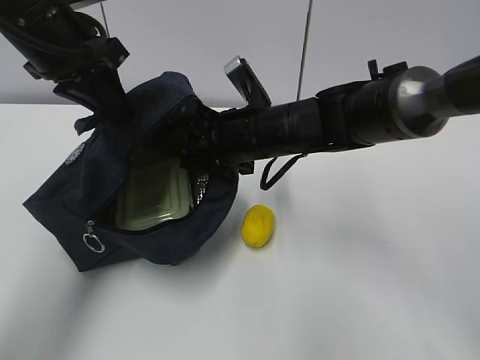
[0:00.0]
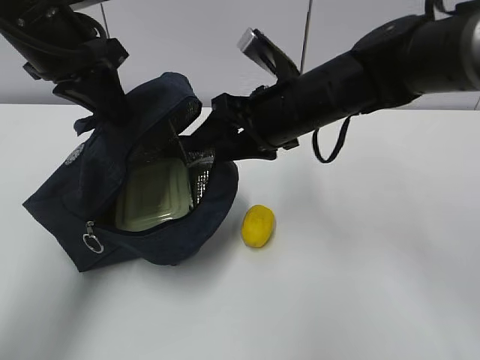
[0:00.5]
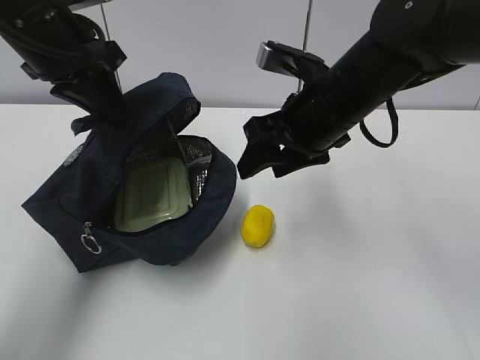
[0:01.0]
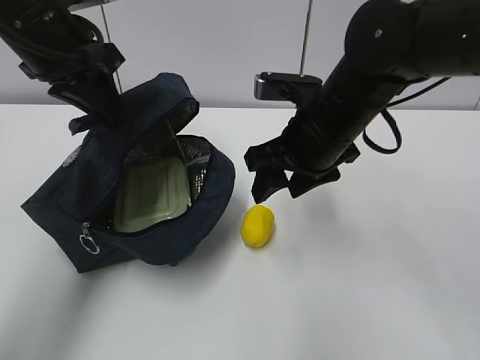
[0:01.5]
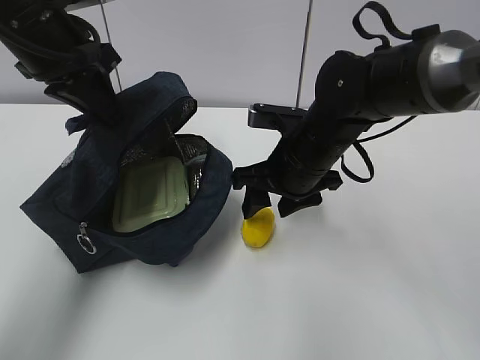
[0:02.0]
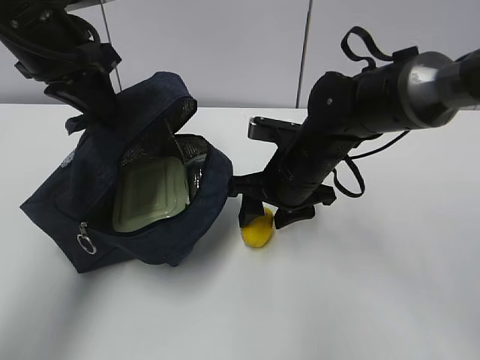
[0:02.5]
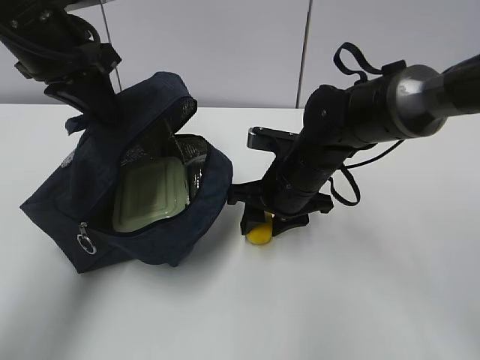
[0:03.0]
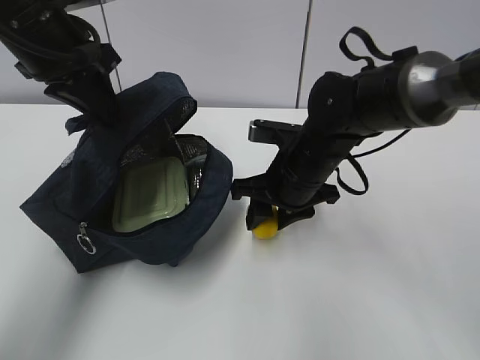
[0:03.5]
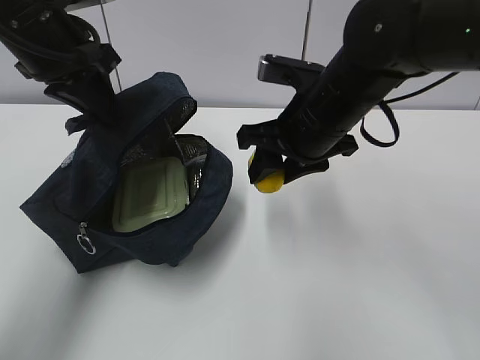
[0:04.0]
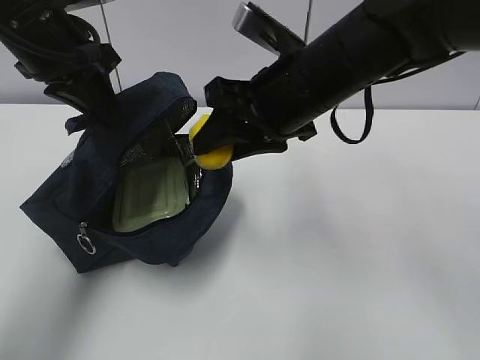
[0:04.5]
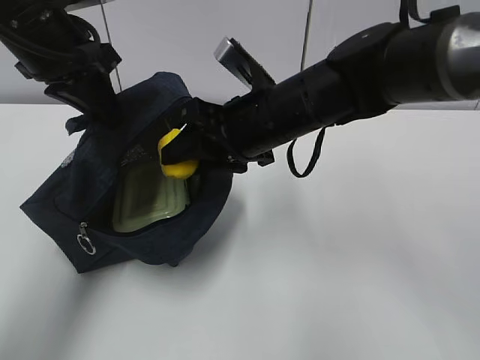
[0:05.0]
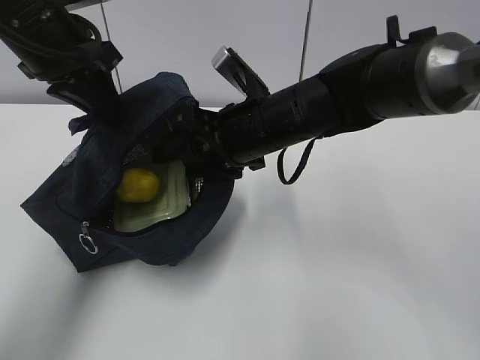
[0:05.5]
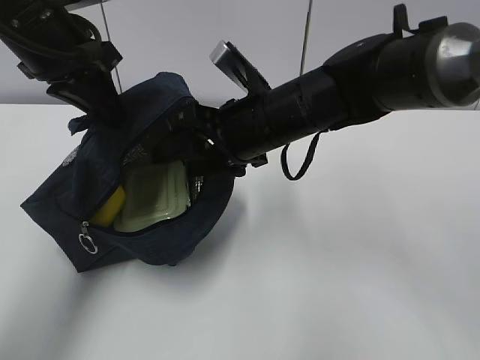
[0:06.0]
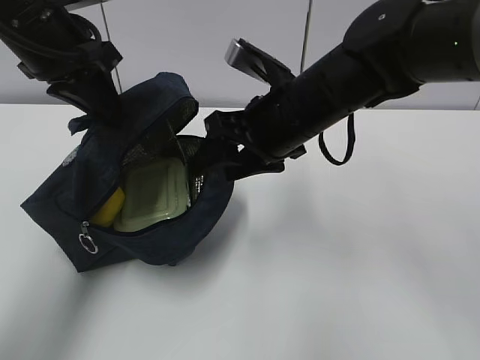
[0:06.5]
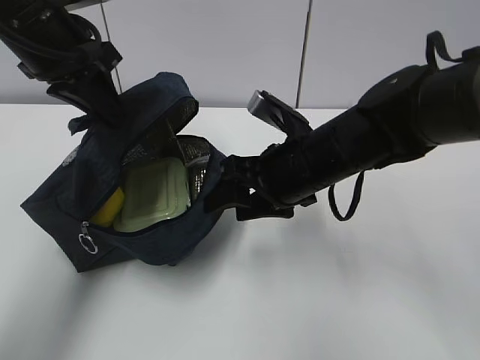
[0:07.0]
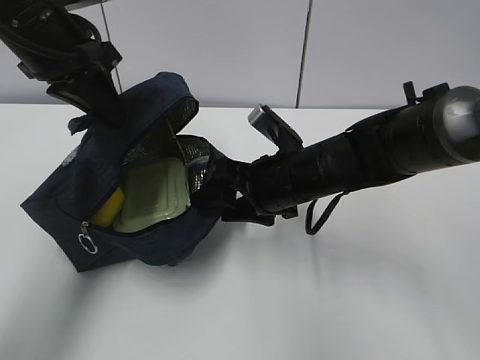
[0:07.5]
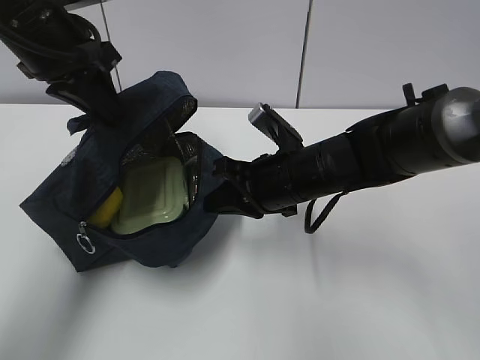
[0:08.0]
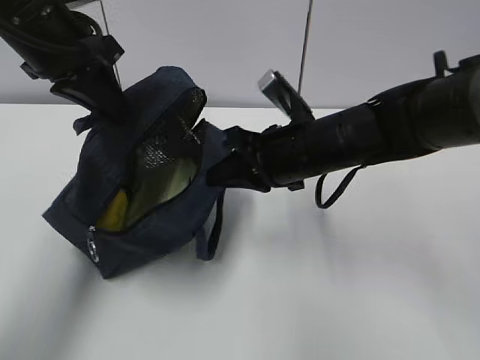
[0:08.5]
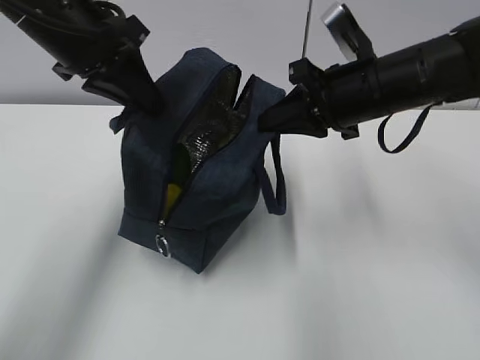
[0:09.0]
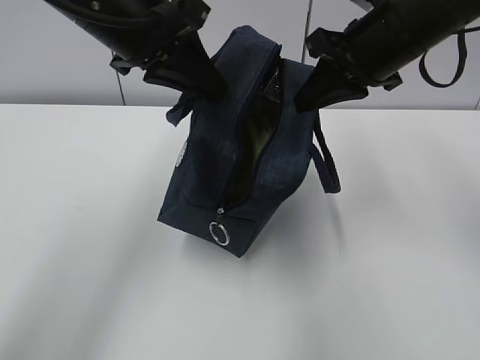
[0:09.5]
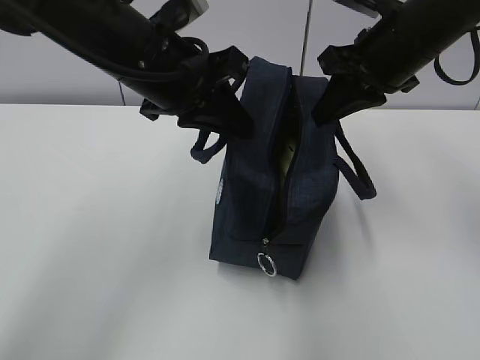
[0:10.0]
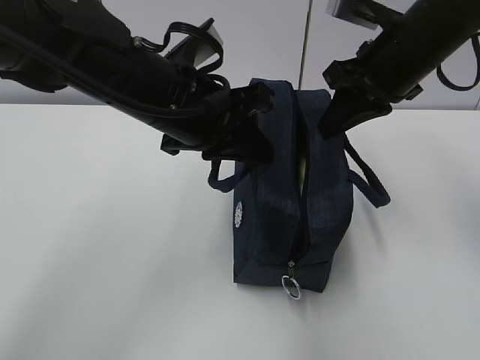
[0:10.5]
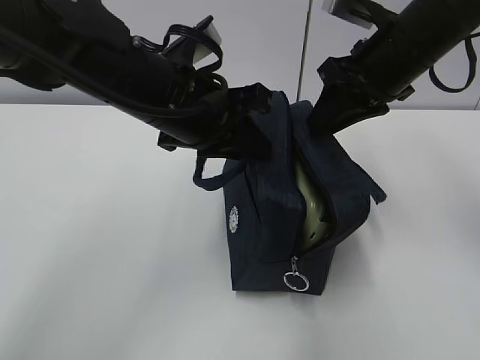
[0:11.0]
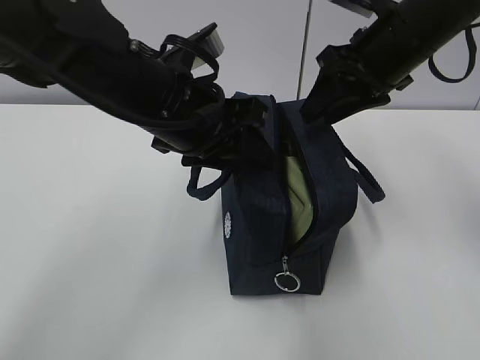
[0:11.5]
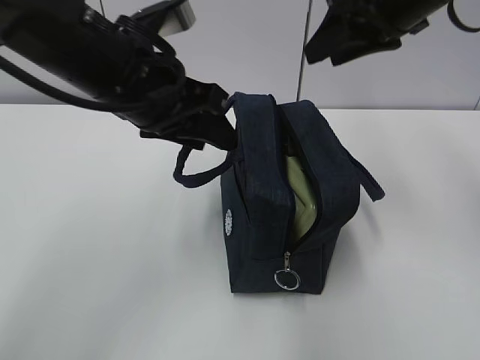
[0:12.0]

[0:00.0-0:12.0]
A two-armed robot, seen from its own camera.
Step, 0:00.5 to 0:01.5: Grab the lunch bag with your right hand.
Step, 0:02.0 to 0:04.5: Move the lunch bag to the right.
0:02.0 to 0:04.0: The right gripper heads upward, covering roughly 5 cm.
0:04.0 to 0:06.0: The right gripper is displaced to the left by about 5 cm.
0:06.0 to 0:08.0: The right gripper travels downward by some 5 cm, and closes.
0:08.0 to 0:10.0: The right gripper travels upward and to the right by approximately 20 cm. Meanwhile the left gripper travels to the right by about 10 cm.
0:10.0 to 0:12.0: The left gripper opens up, while the right gripper goes roughly 5 cm upward, and opens.

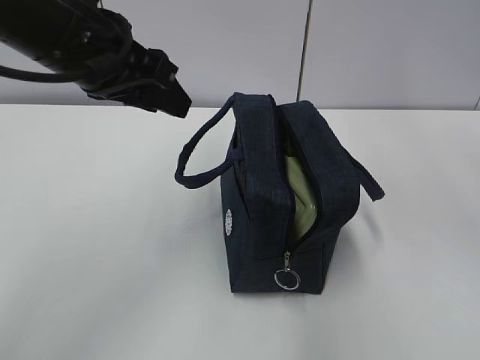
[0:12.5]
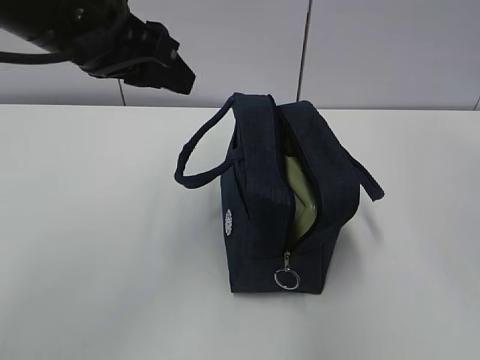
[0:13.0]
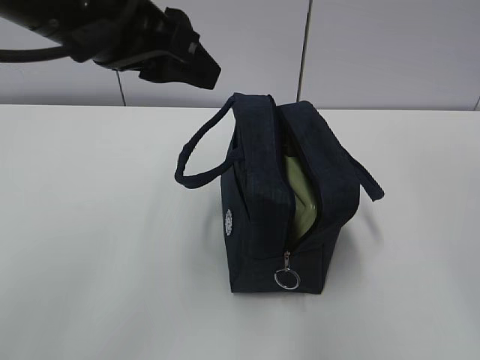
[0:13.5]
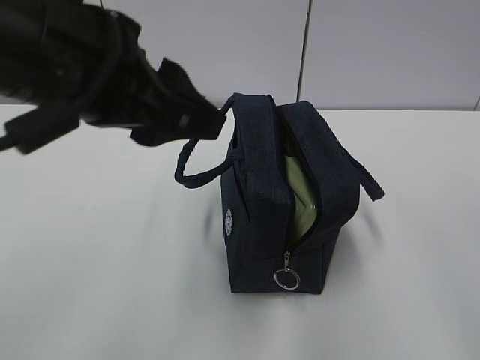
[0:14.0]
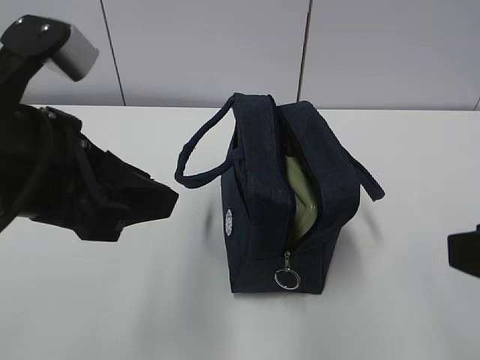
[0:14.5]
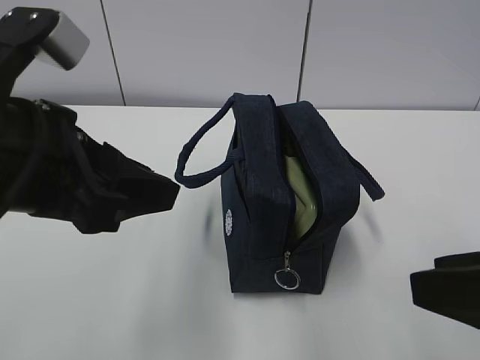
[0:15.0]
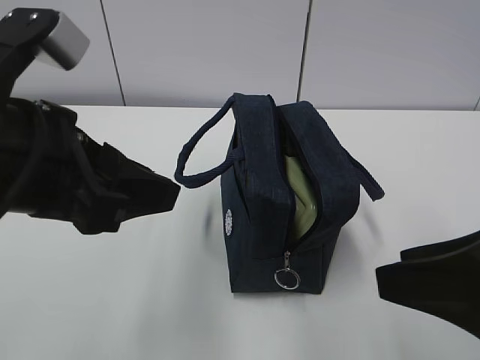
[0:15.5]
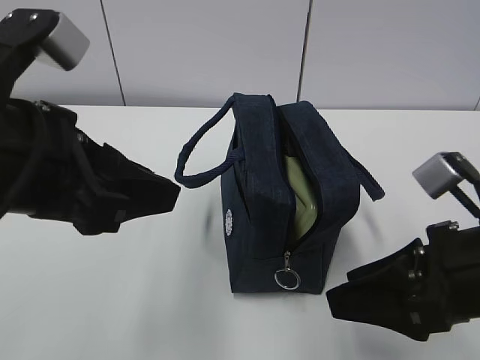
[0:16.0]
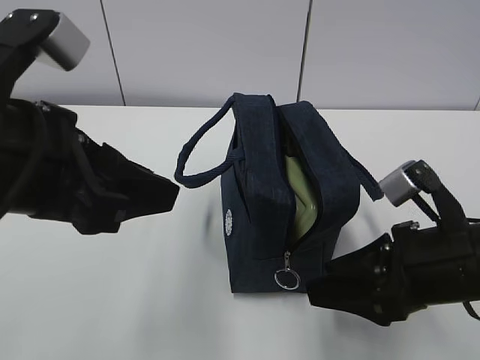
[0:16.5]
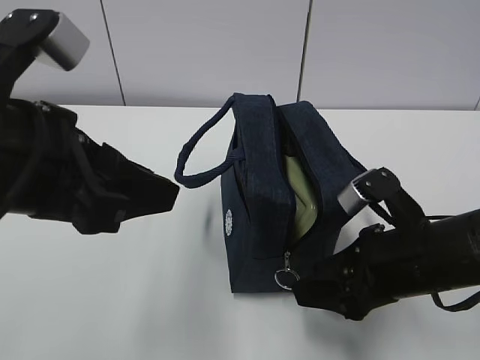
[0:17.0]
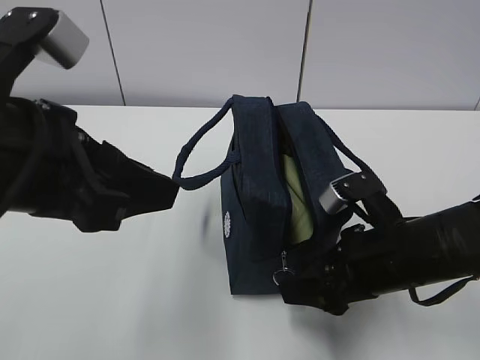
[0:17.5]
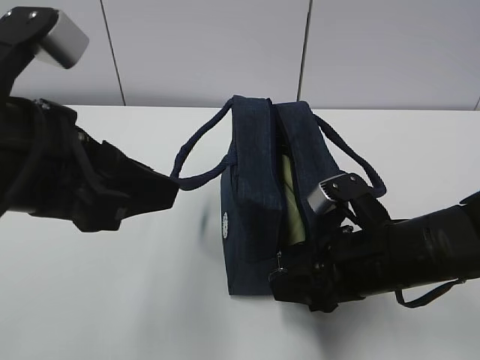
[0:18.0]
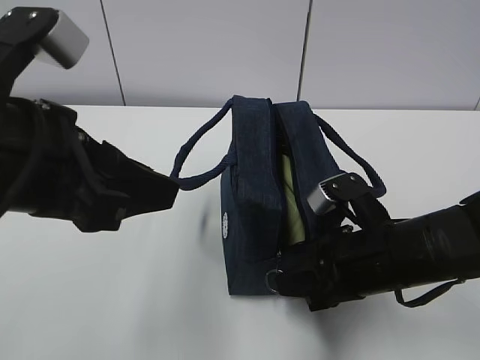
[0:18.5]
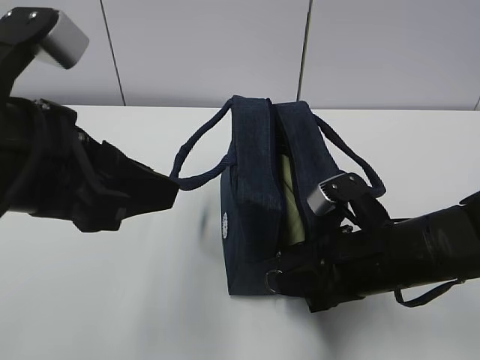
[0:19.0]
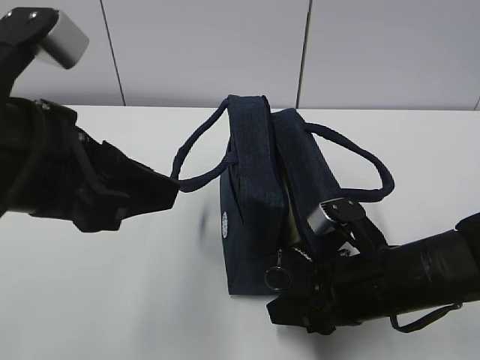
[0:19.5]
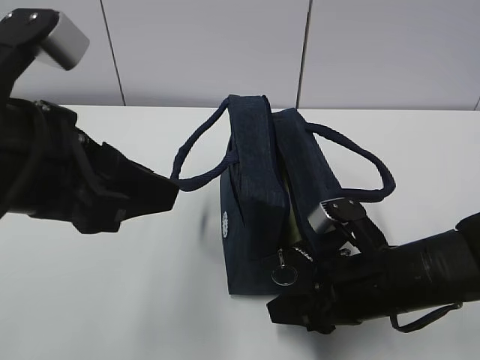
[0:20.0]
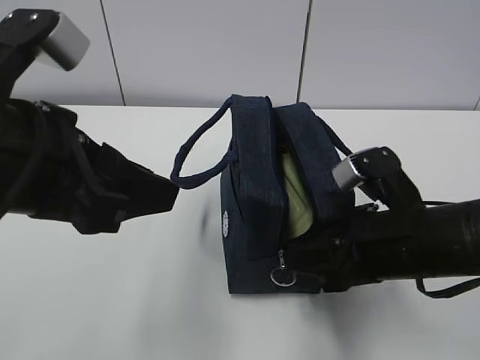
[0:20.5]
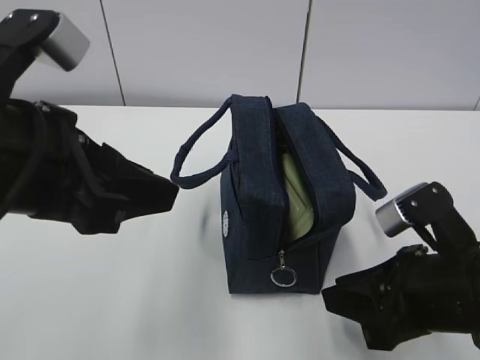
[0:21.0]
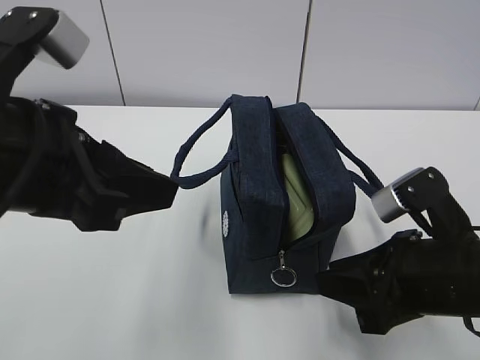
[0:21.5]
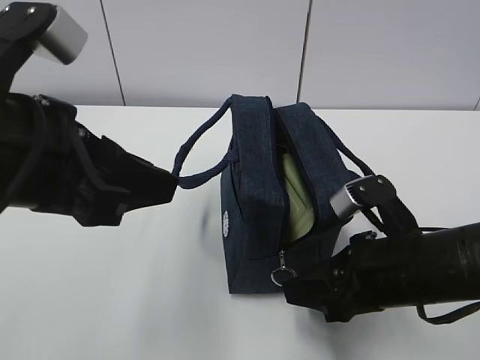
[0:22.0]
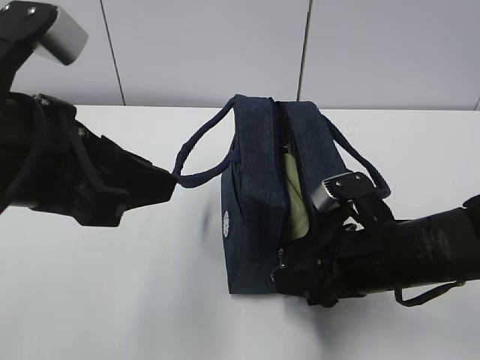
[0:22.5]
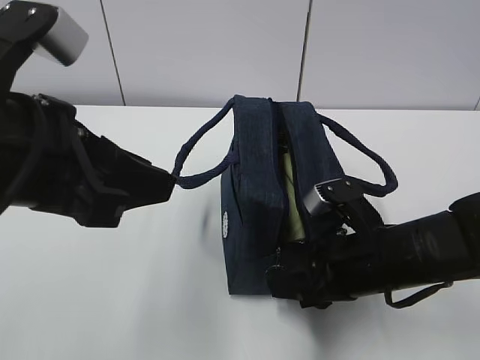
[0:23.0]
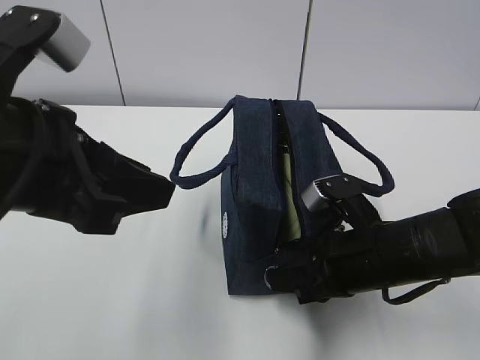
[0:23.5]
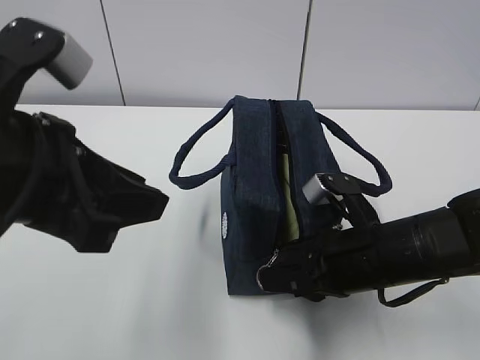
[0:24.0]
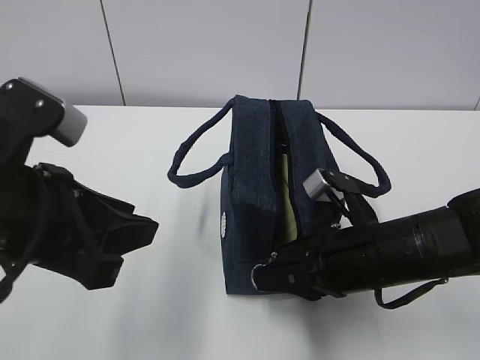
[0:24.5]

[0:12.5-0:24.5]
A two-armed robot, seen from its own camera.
Step, 0:12.5 to 0:23.0: Grab the lunch bag with your left hand.
0:12.5 to 0:14.5: The right gripper moves backward and downward, about 25 cm, while the left gripper moves backward, some 10 cm.
0:14.5 to 0:16.5: The right gripper goes about 15 cm downward and forward.
0:16.5 to 0:18.5: The right gripper moves approximately 5 cm, and closes its fingers.
0:18.5 to 0:20.5: There are only small adjustments of the grippers.
0:20.5 to 0:22.5: The grippers stay close to where they were, moving slightly.
0:22.5 to 0:24.5: The left gripper goes some 5 cm downward. Meanwhile the right gripper closes up.

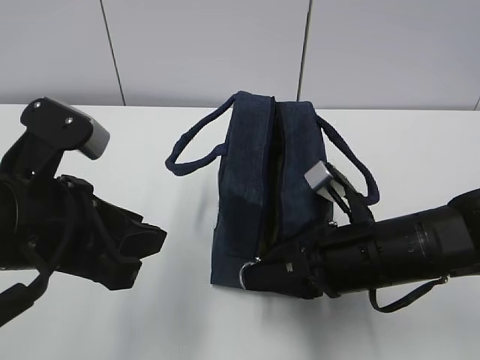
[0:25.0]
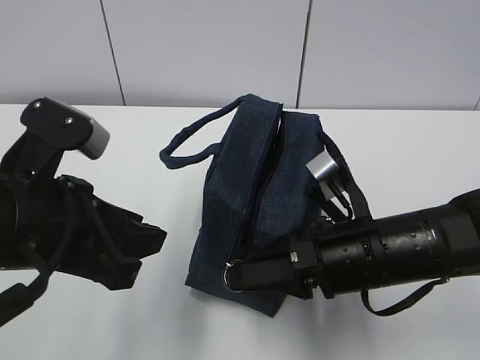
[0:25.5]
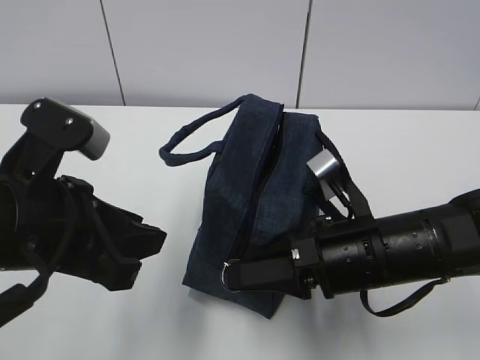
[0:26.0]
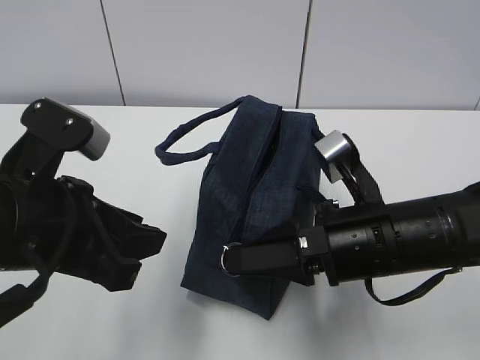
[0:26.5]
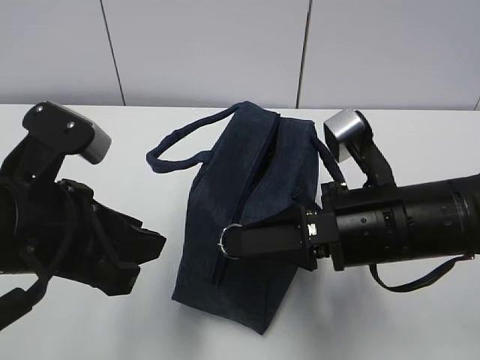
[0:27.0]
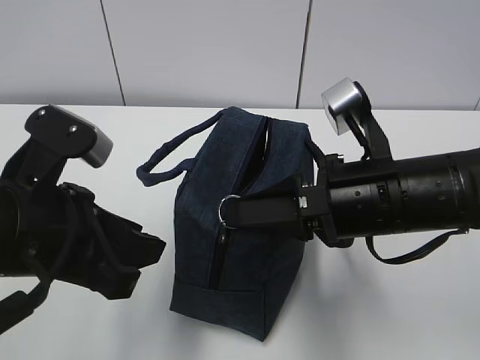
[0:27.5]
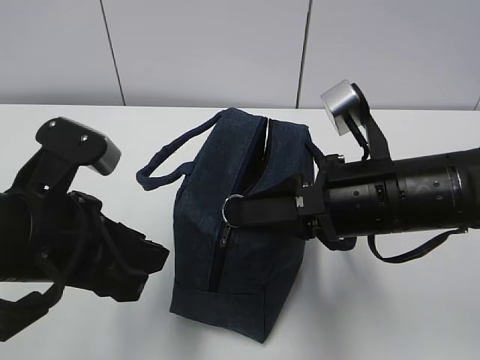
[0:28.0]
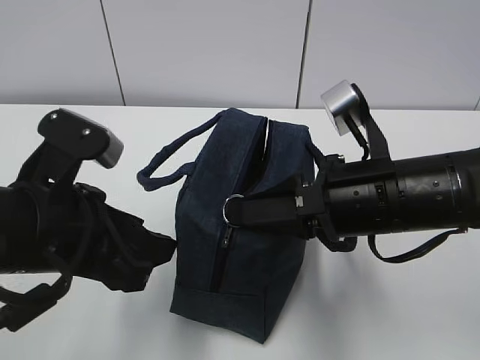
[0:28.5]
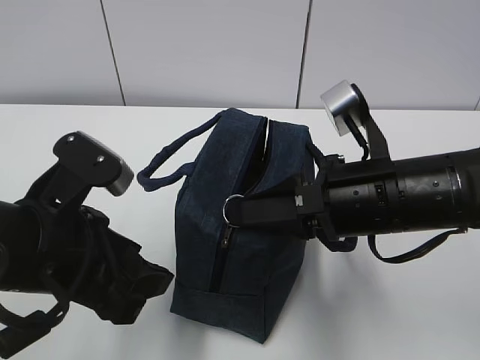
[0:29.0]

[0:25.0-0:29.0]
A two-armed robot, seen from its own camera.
0:25.0 to 0:27.0: The right gripper moves upward, about 5 cm.
0:27.0 to 0:29.0: The left gripper opens.
